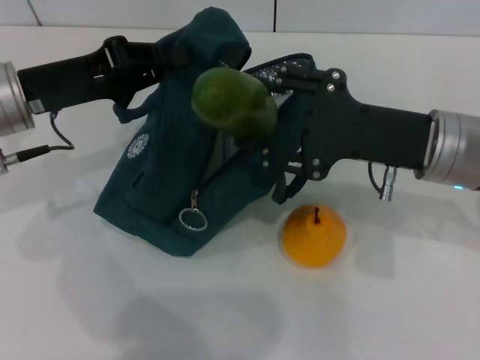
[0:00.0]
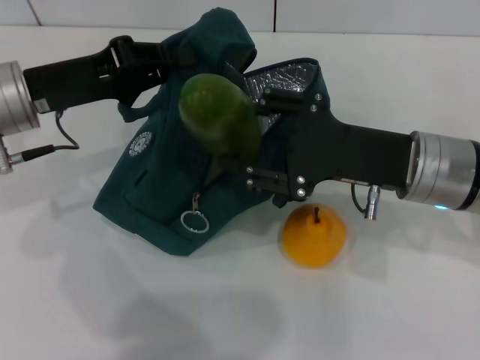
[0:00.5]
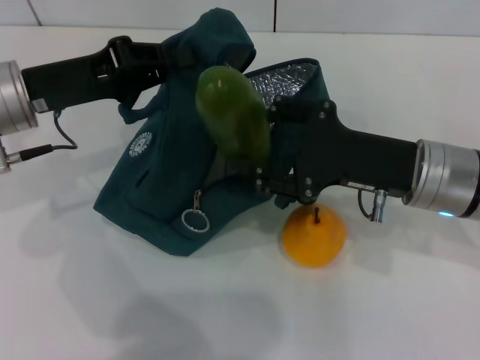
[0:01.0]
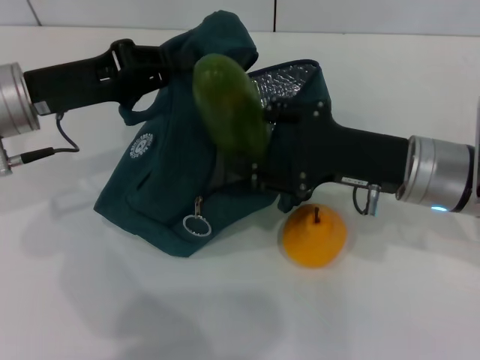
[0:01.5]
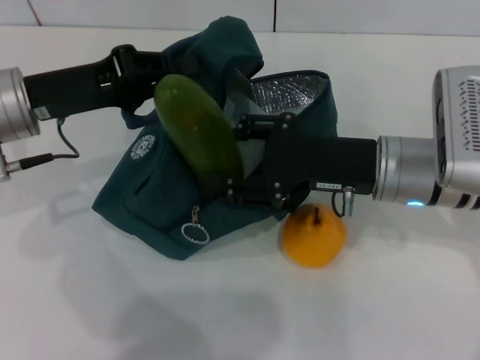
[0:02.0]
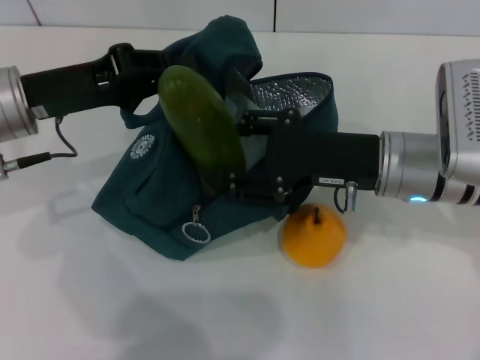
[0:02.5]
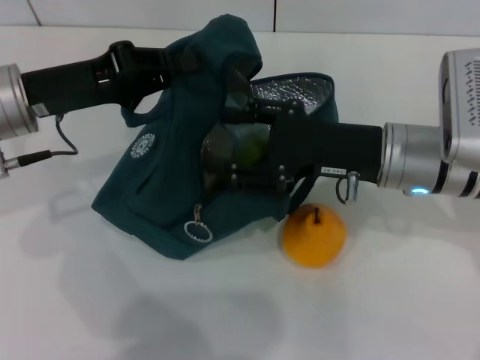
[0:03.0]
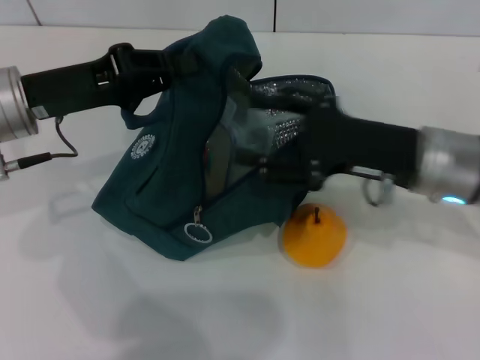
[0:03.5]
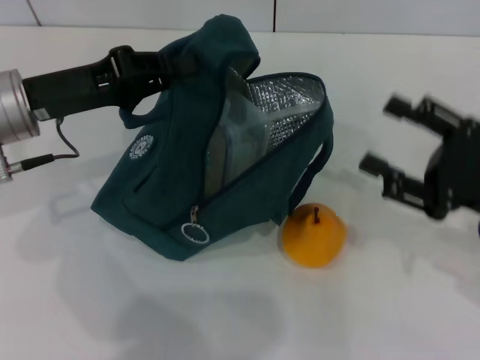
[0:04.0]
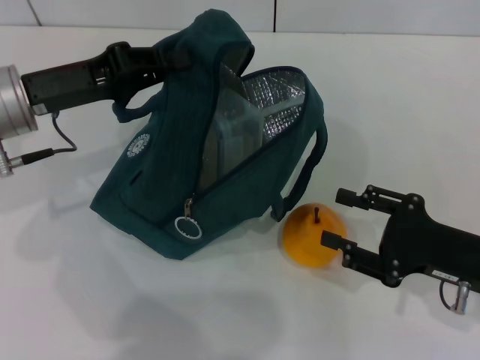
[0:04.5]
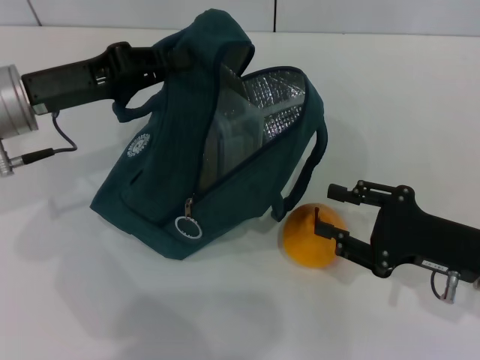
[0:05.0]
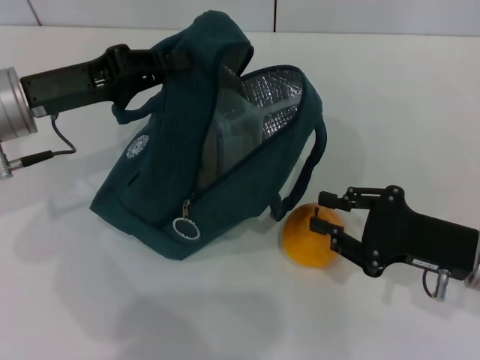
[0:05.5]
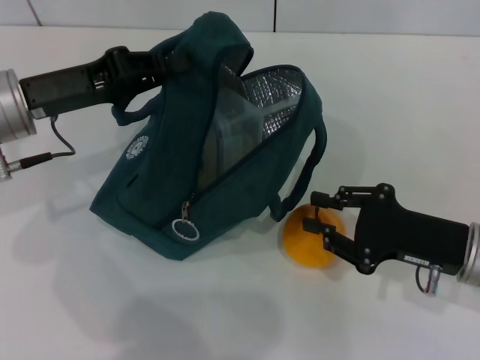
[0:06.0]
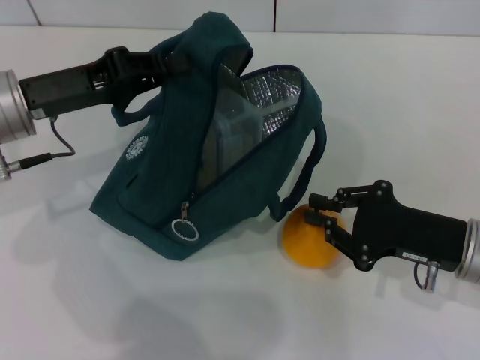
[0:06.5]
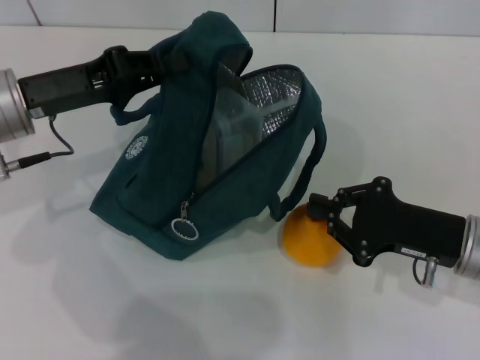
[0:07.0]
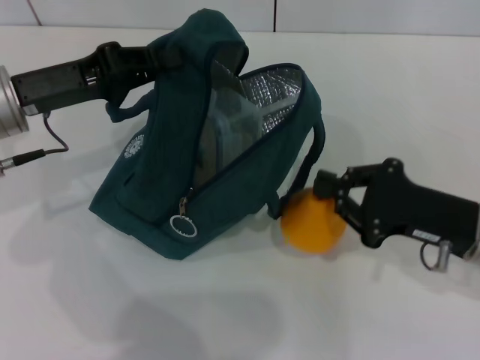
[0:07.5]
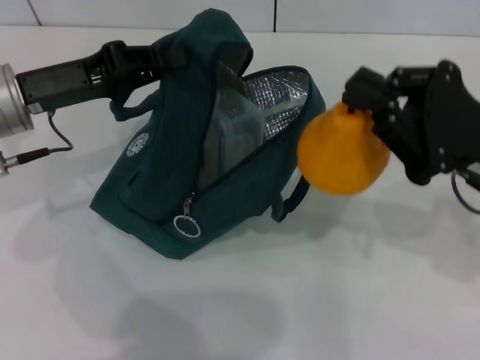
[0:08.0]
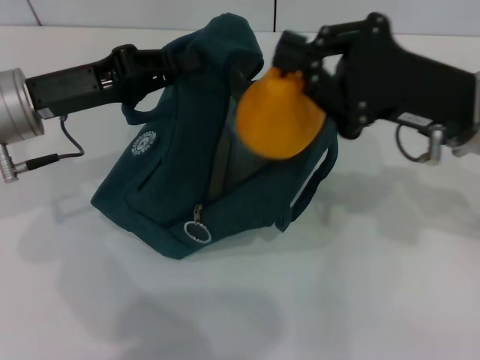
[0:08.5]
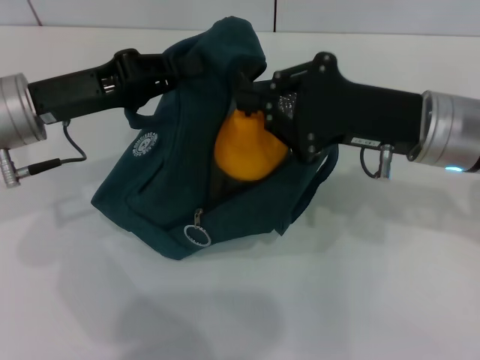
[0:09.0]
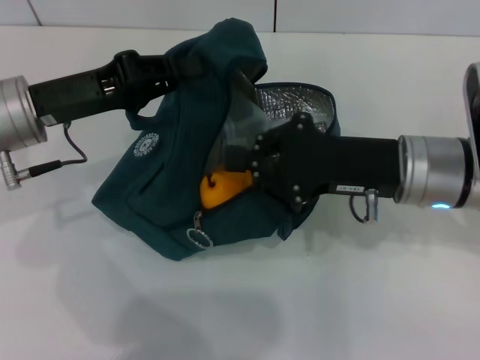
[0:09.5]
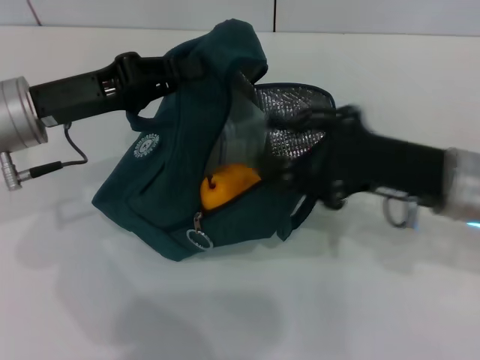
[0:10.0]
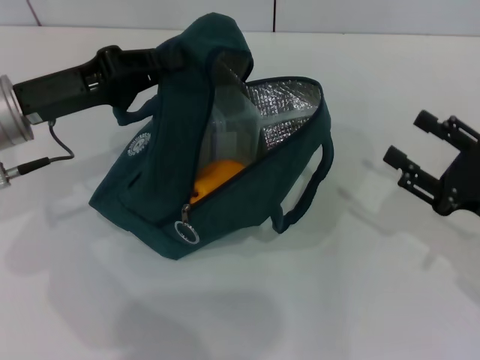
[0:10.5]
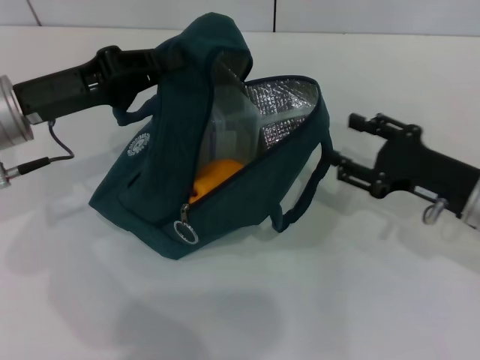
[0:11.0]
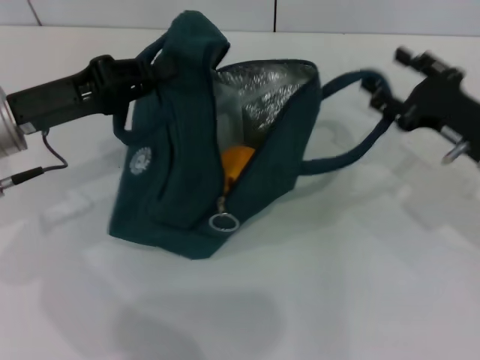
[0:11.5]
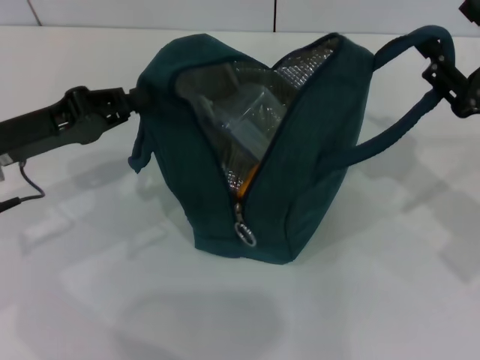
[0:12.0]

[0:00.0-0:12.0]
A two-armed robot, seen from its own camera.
Step, 0:00.0 to 0:03.5: Put the cucumber into the lunch bag with your right hand.
Step, 0:04.0 to 0:07.0: Grab the pear with your right hand.
0:02.0 to 0:04.0: The right gripper heads to the right and backward, covering roughly 15 cm.
0:04.0 to 0:06.0: The right gripper changes place by some 5 cm, and closes its fingers.
0:06.0 to 0:08.0: The right gripper travels upward by some 10 cm.
0:10.0 to 0:12.0: The left gripper shifts by roughly 5 cm; the right gripper is displaced to the right by roughly 10 cm, and opens its fingers.

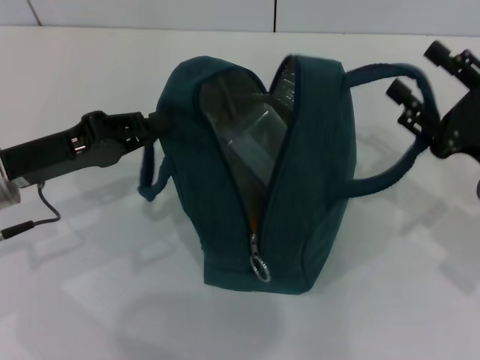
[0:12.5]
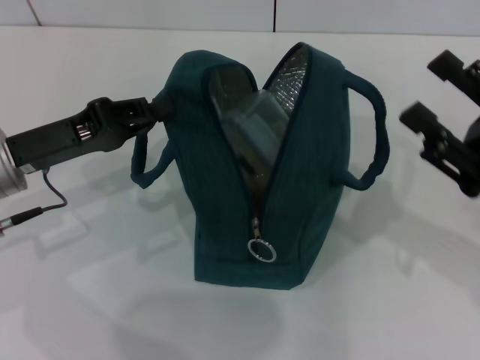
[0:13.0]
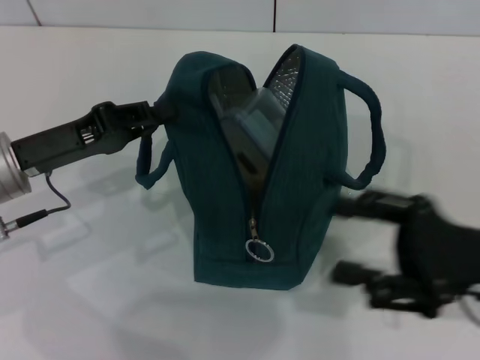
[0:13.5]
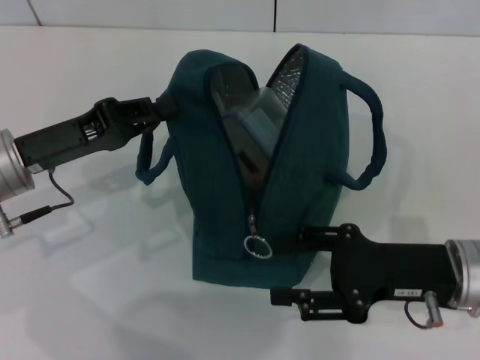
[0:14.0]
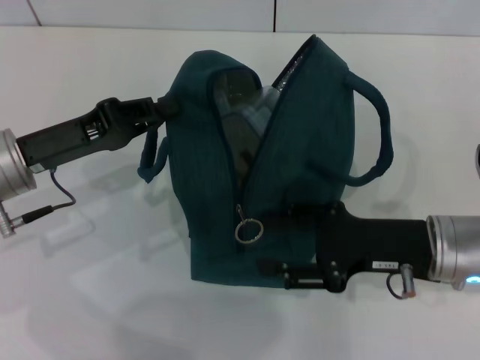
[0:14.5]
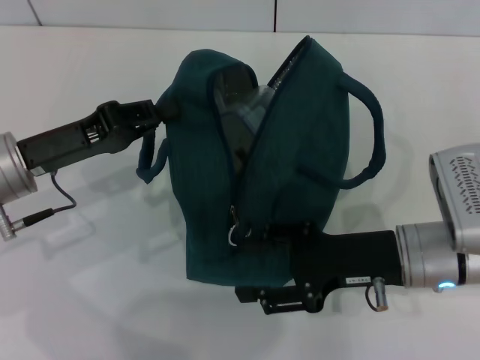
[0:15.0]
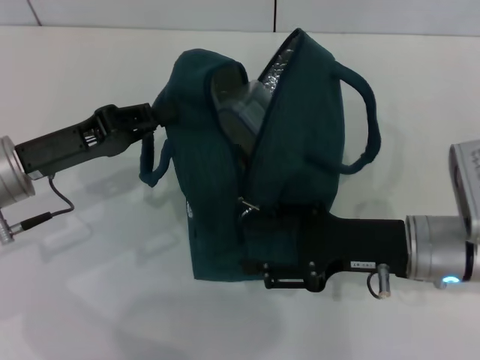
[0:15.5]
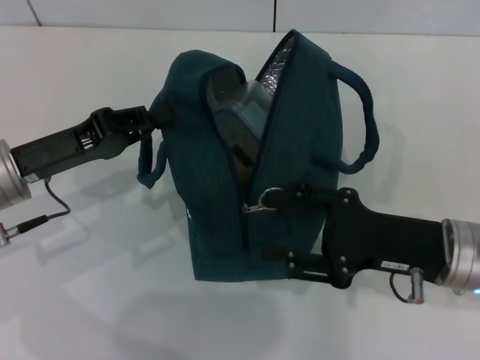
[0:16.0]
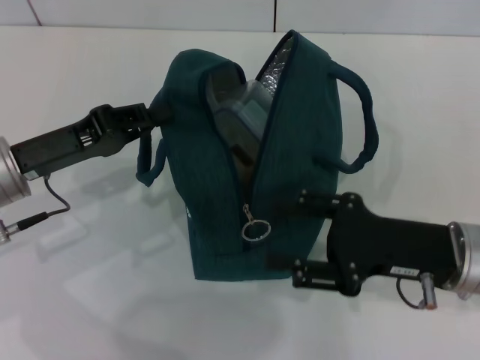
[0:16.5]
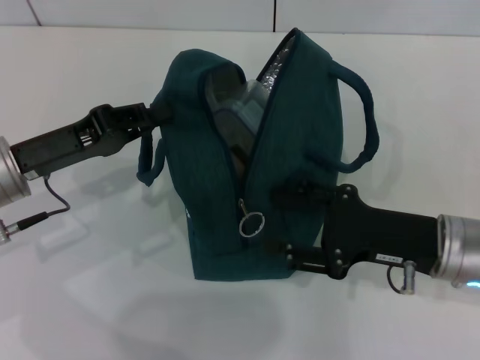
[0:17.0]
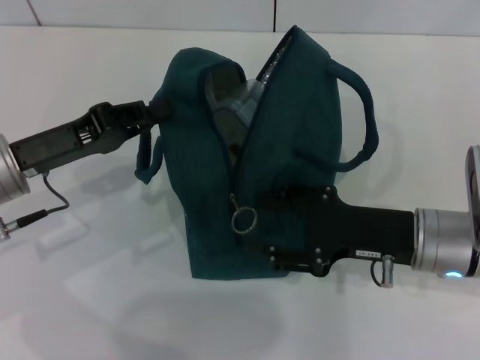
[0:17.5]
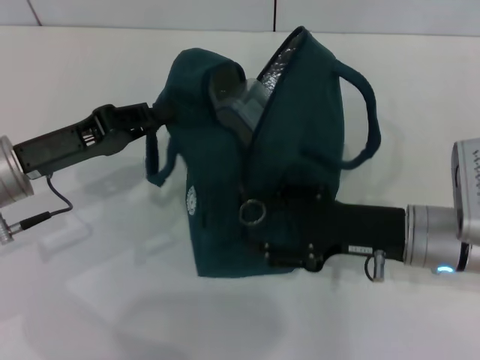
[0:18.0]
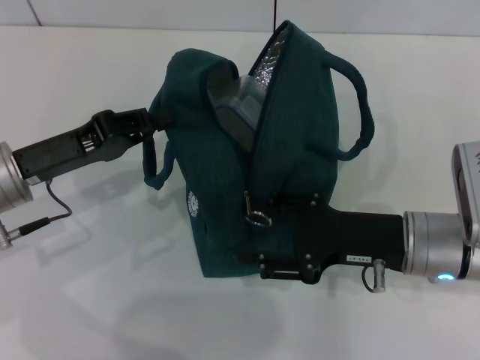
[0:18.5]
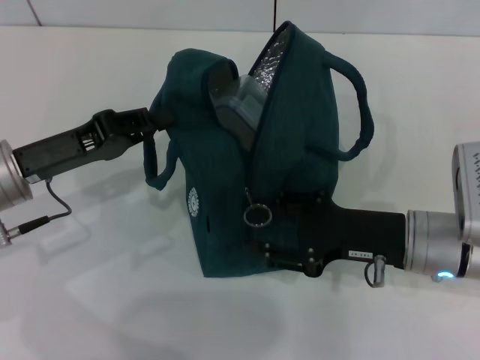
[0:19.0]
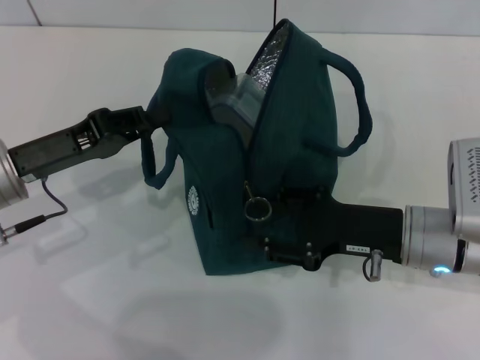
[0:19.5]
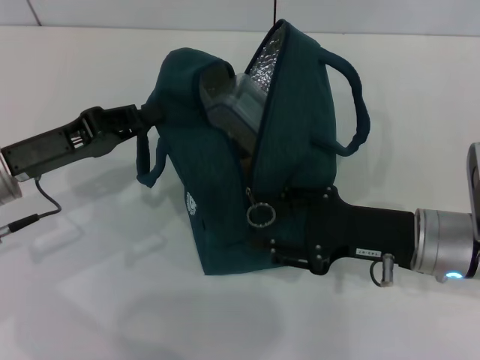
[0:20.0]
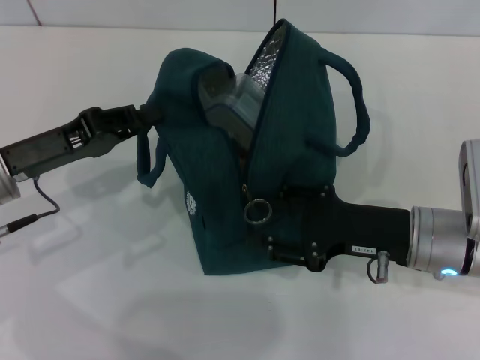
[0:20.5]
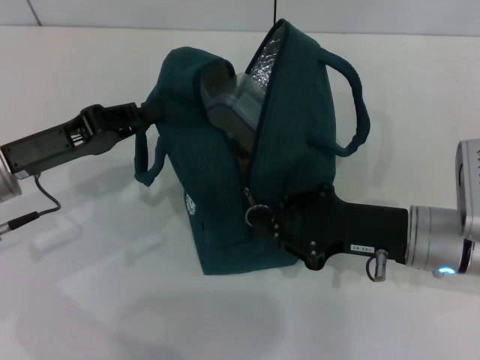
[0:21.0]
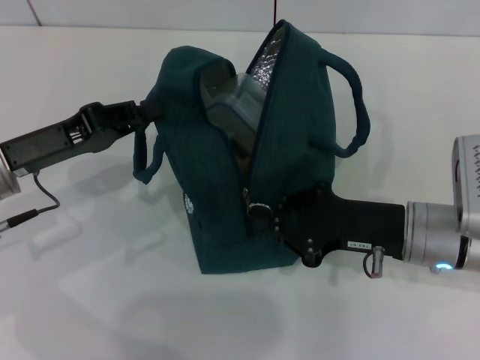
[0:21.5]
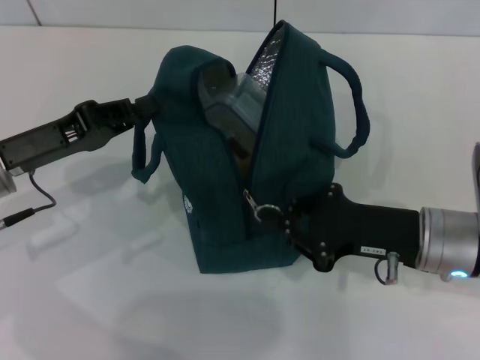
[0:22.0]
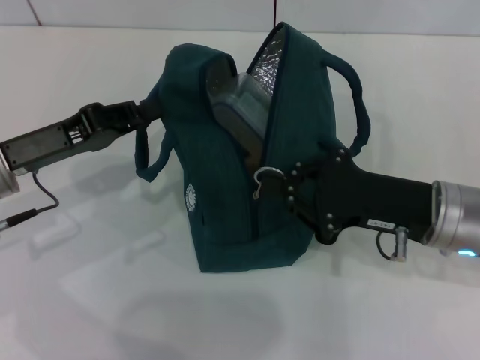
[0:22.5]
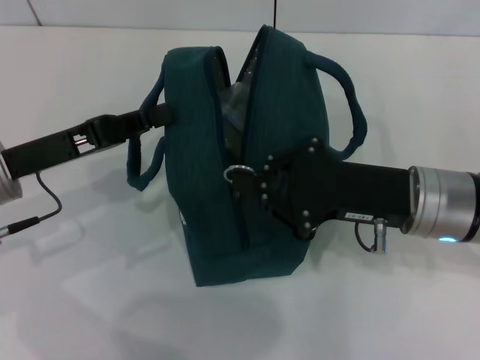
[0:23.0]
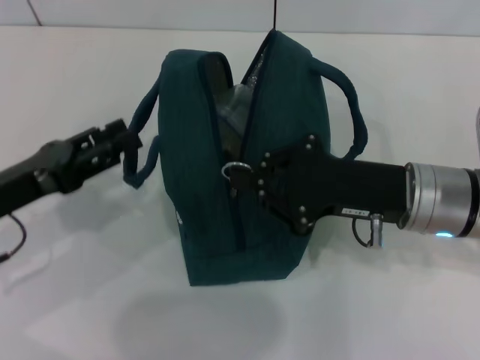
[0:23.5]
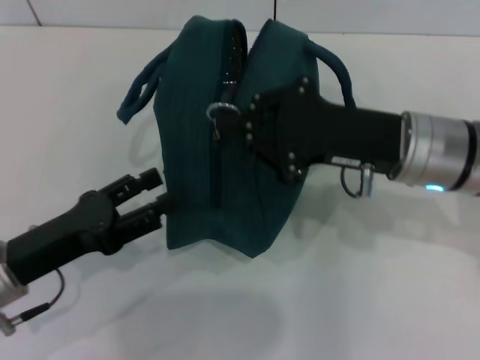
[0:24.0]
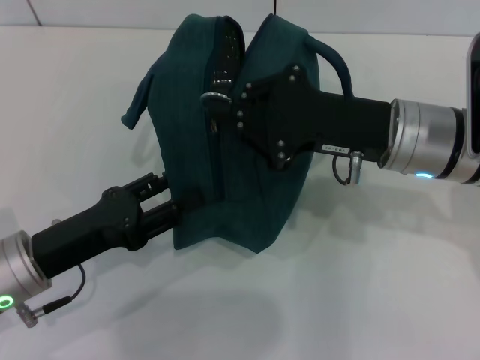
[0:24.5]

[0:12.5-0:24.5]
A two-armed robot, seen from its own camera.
0:12.5 to 0:14.5: The right gripper goes roughly 10 cm to the left.
0:14.5 to 0:20.5: The grippers stay close to where they were, moving slightly.
0:20.5 to 0:22.5: The right gripper closes.
0:22.5 to 0:24.5: The right gripper goes about 5 cm upward. The left gripper travels backward and downward by roughly 10 cm, and opens up.

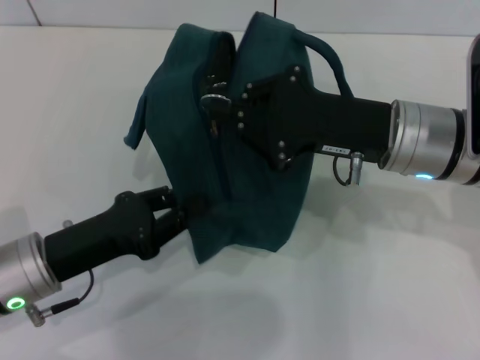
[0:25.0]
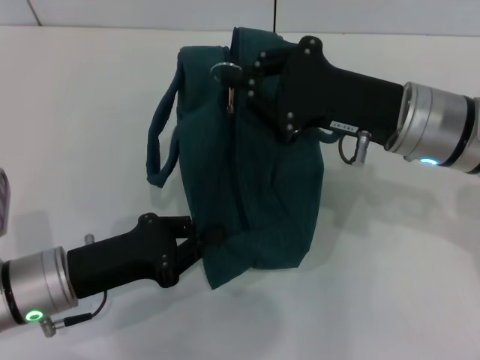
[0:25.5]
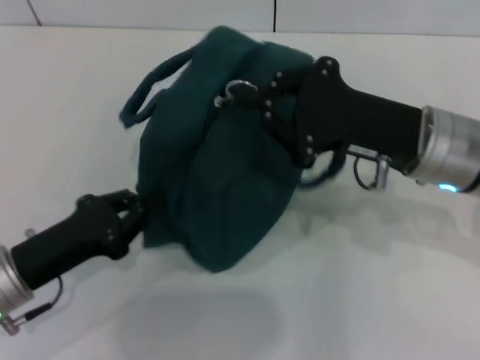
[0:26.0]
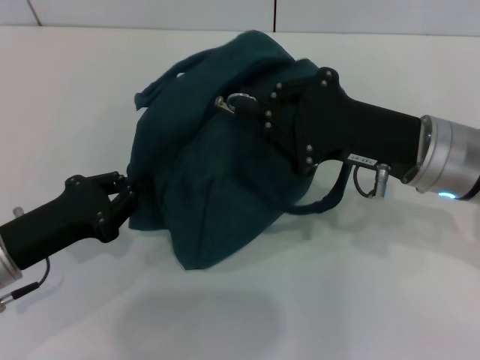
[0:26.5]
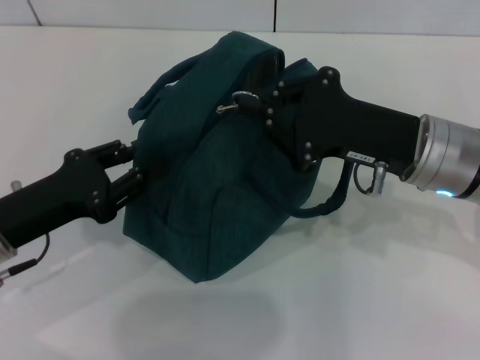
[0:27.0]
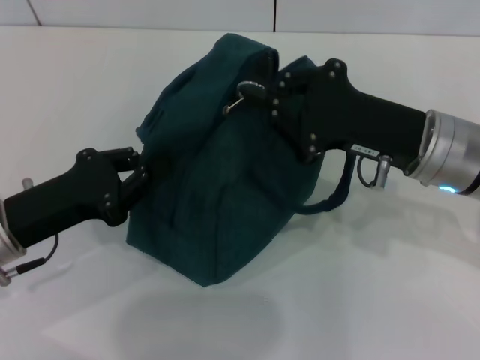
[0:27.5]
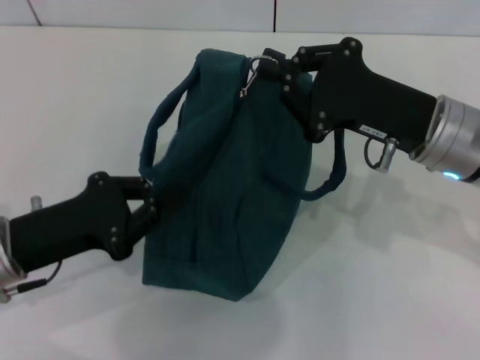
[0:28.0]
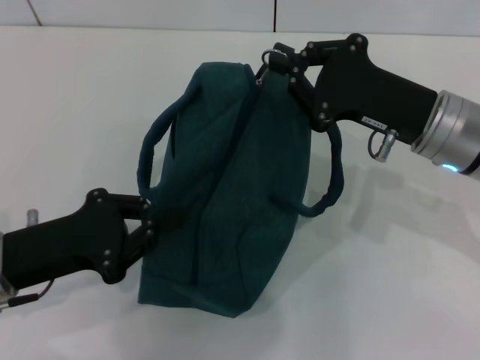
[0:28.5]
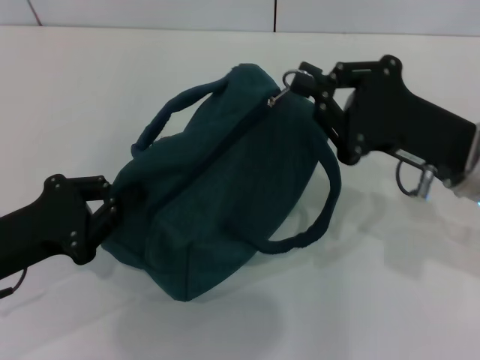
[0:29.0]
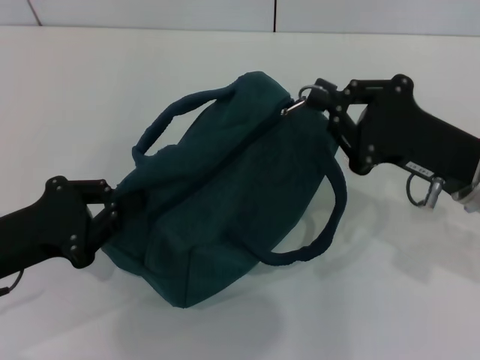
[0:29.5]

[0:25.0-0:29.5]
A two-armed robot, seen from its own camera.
0:27.0 to 0:29.5: The right gripper ends up some 5 cm from where it was.
